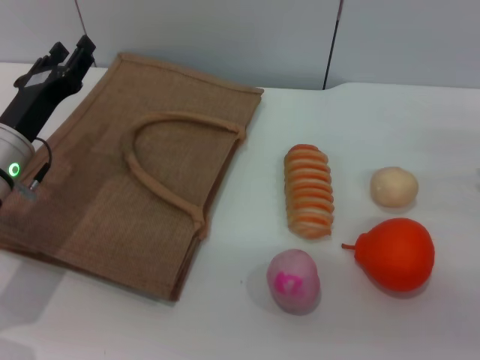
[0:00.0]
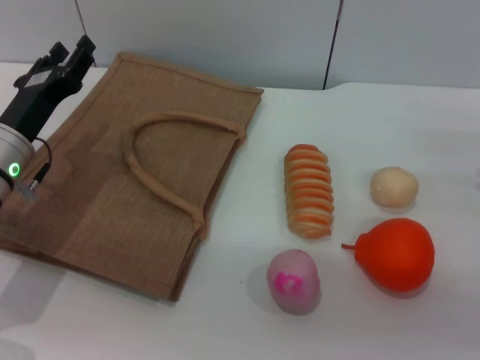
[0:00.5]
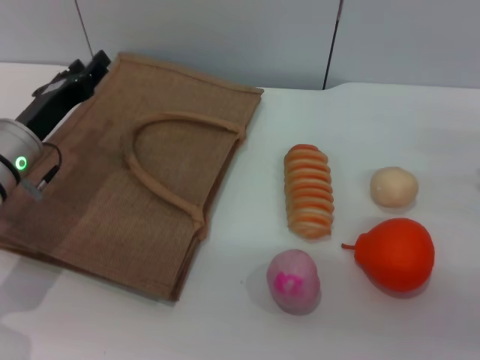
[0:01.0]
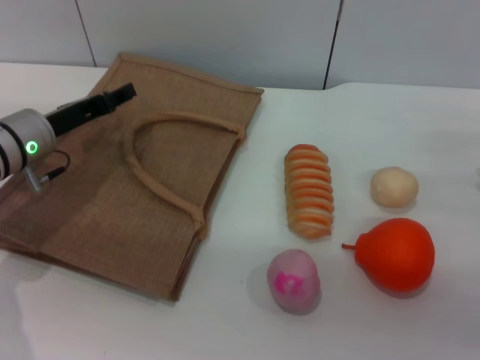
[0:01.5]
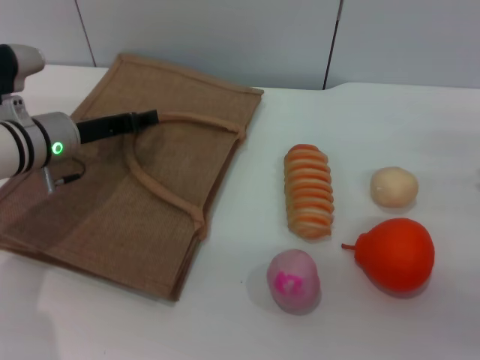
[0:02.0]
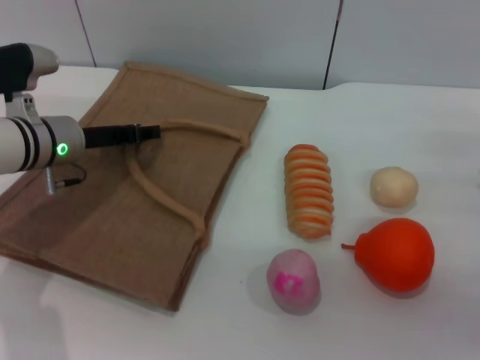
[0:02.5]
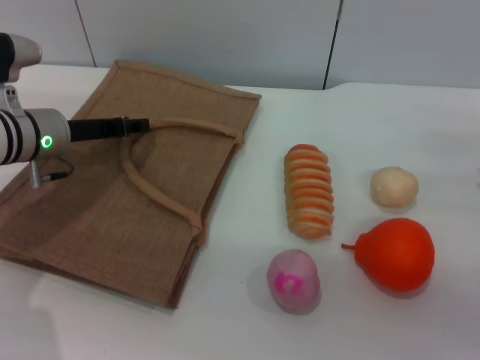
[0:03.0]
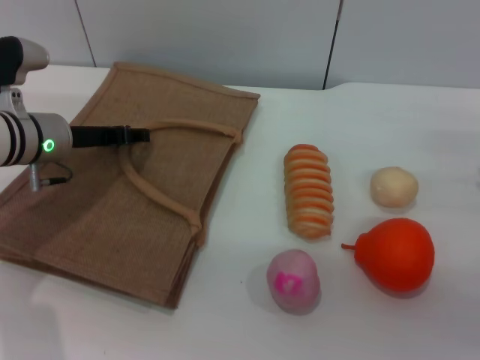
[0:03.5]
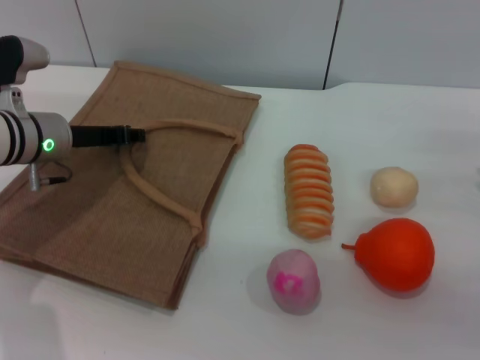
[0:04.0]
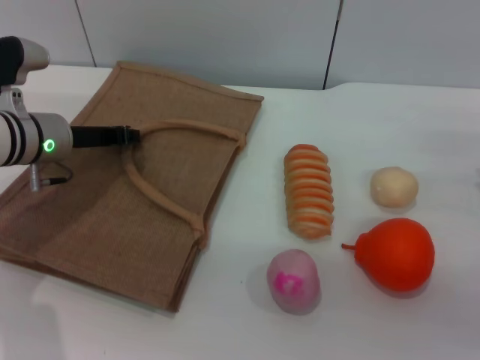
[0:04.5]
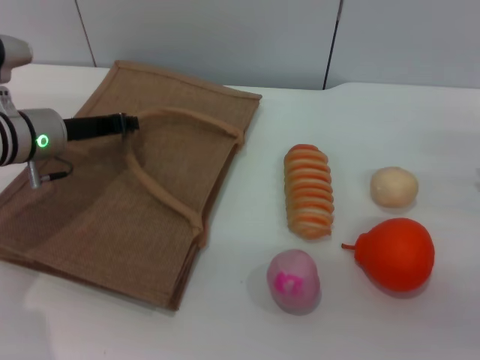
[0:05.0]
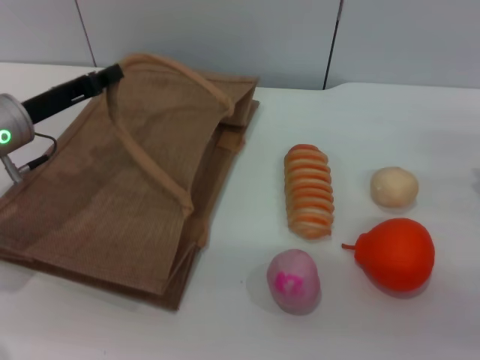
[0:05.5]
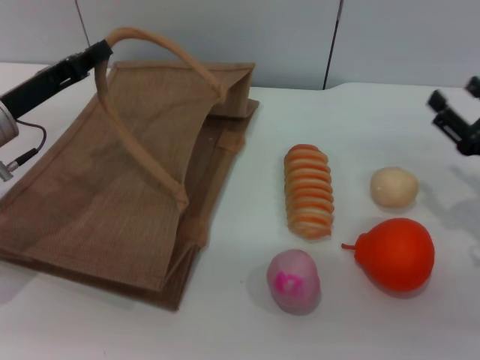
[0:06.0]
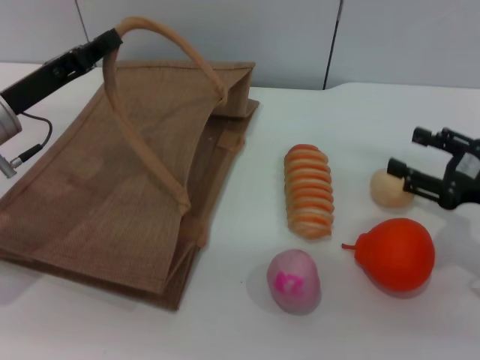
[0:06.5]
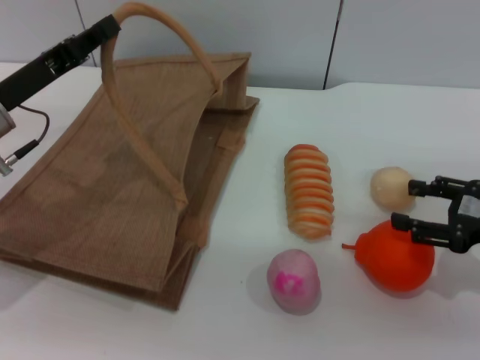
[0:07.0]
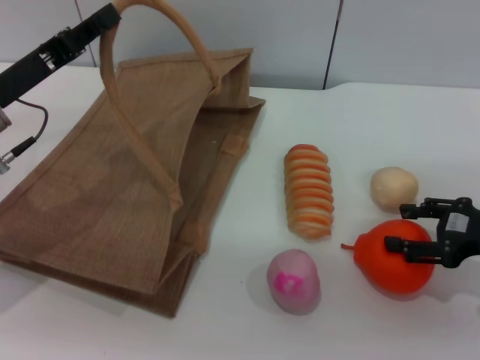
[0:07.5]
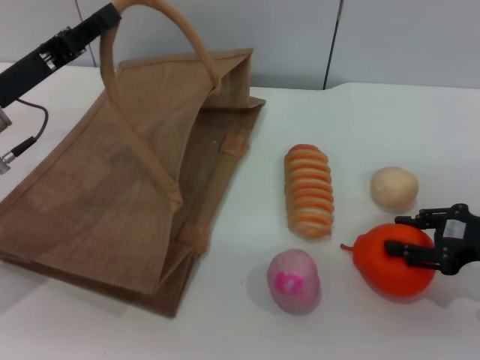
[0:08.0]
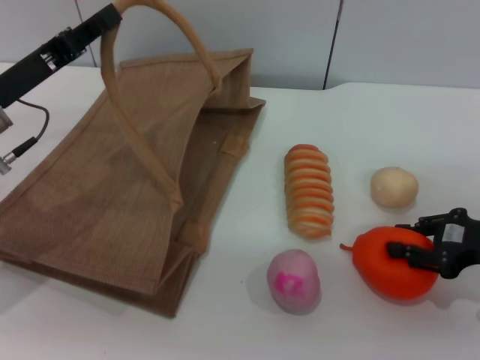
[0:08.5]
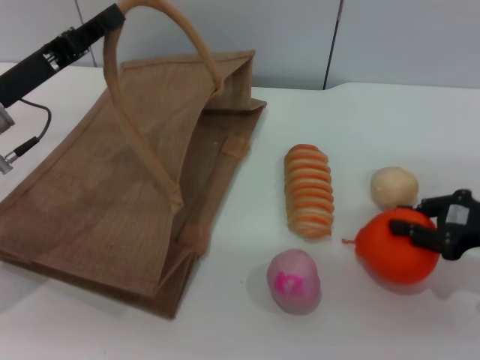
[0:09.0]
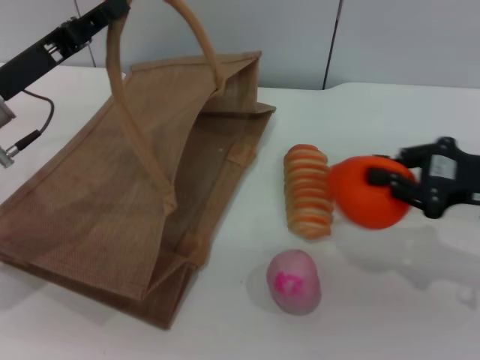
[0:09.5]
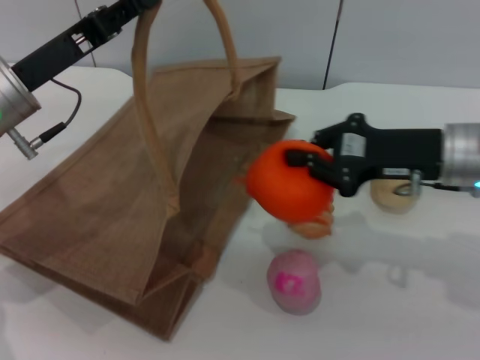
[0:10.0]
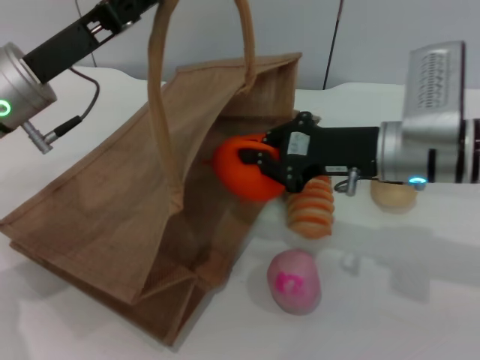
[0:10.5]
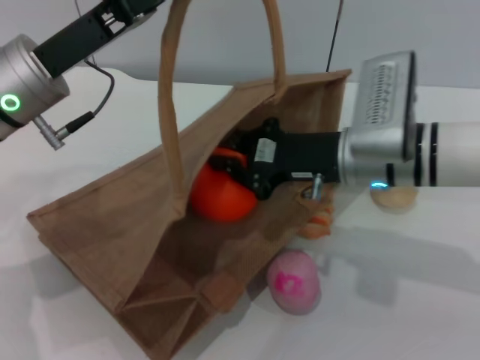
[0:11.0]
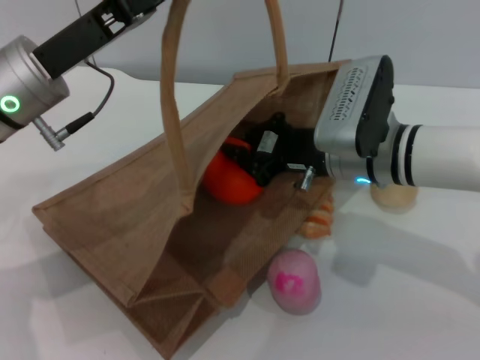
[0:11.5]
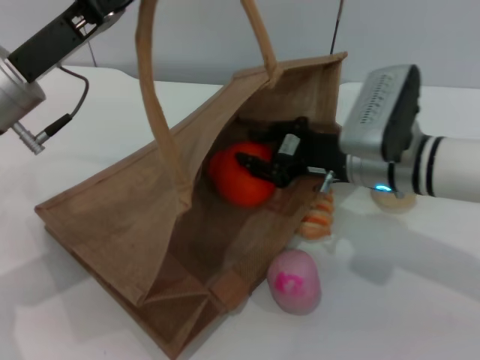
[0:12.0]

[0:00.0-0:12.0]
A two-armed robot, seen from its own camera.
Task of the whole recording: pick up the orange from the table and place it in the brown handbag.
Step, 0:00.0 to 0:05.5: Lift the woven bag with the left gripper to open it.
Step, 0:06.0 to 0:09.0: Pick up the orange with the right gripper.
0:00.0 to 0:02.0: The left gripper heads forward, covering about 5 cm.
0:02.0 to 0:04.0: The grippers stay close to where they were, moving slightly.
0:04.0 to 0:06.0: The left gripper changes place by approximately 5 cm, and closes up.
0:08.0 to 0:10.0: The right gripper travels to the left, upward and forward by about 15 cm, and closes.
0:10.0 to 0:12.0: The right gripper moves to the left, about 5 cm.

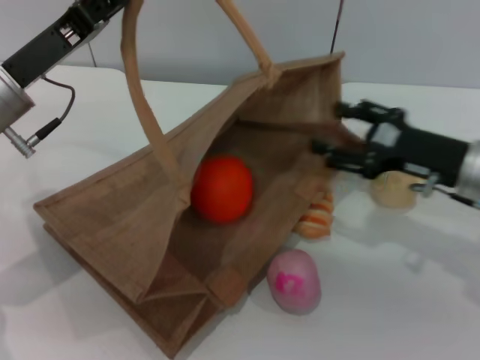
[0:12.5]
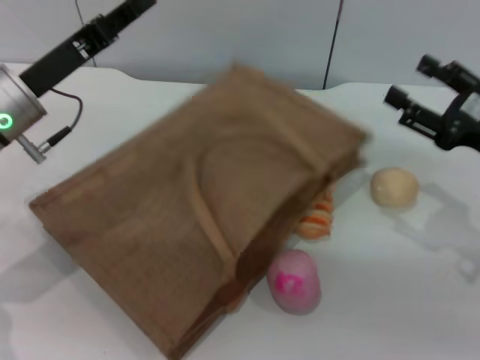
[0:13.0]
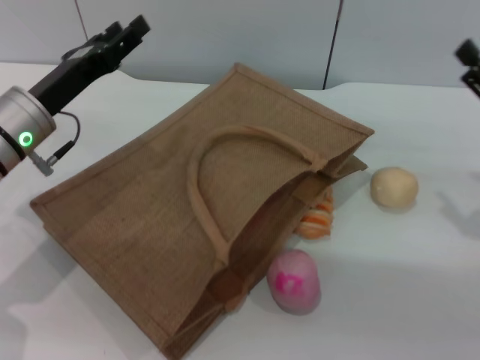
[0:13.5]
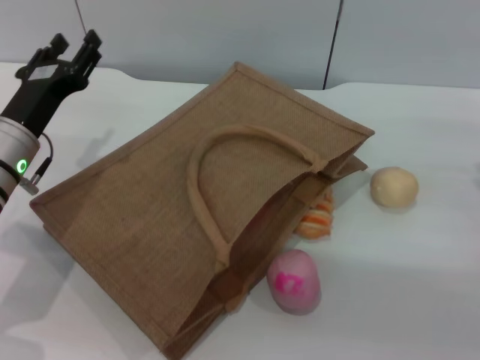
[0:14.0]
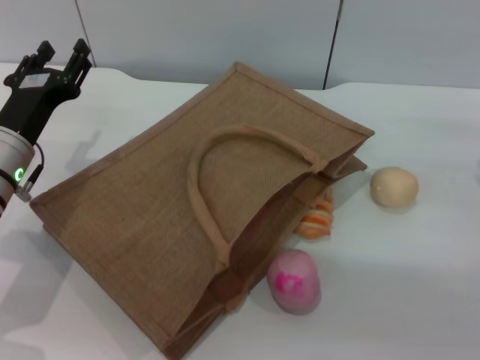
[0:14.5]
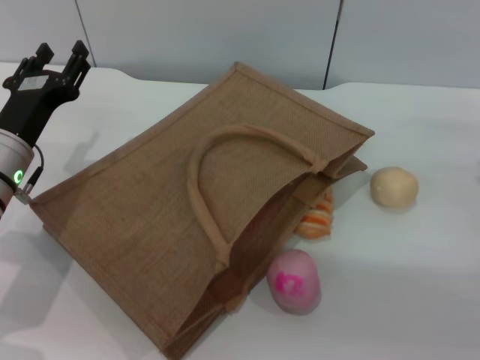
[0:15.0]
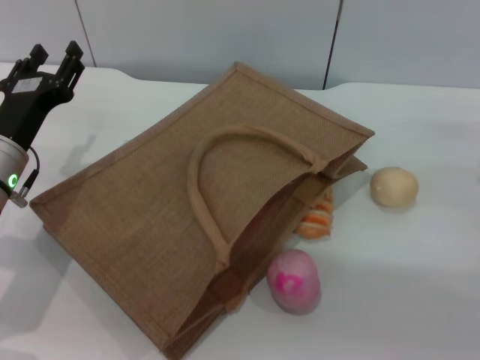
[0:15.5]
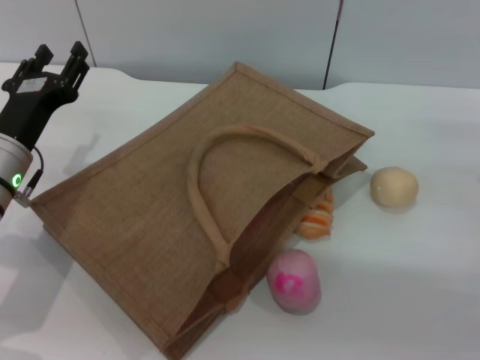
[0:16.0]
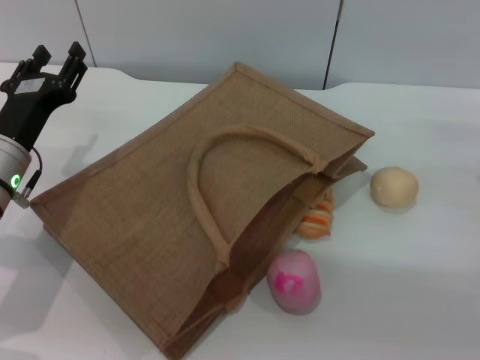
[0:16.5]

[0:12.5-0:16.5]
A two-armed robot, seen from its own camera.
Task of the whole recording: pick up the orange from the table and place it in the brown handbag.
0:12.5 to 0:14.5: The left gripper is displaced downward by approximately 10 cm, and opens. The right gripper goes approximately 10 cm to the right.
0:14.5 to 0:16.5: Both grippers stay put.
